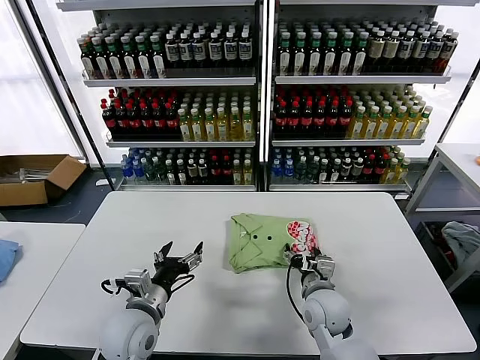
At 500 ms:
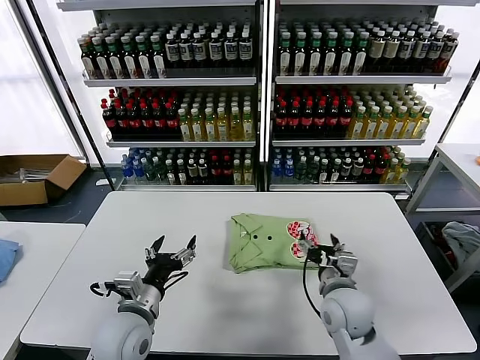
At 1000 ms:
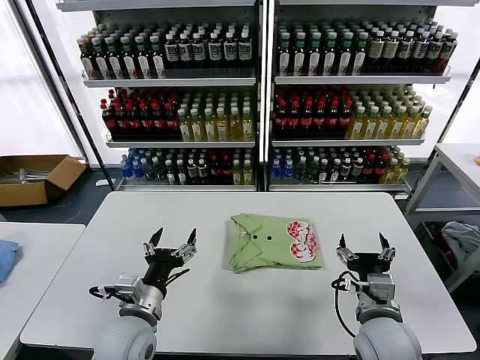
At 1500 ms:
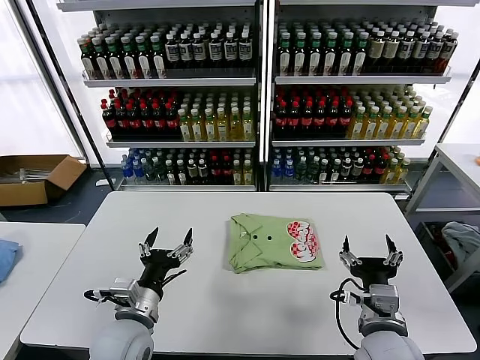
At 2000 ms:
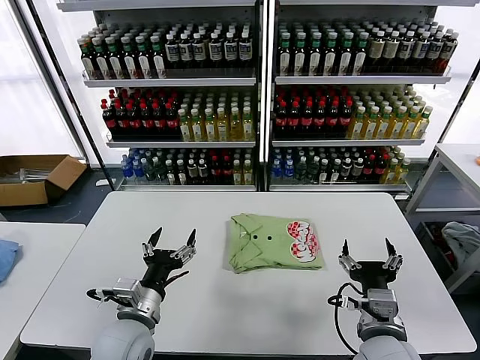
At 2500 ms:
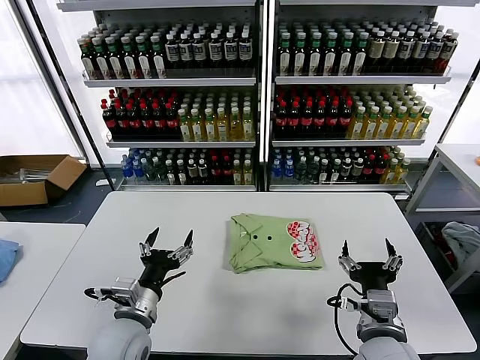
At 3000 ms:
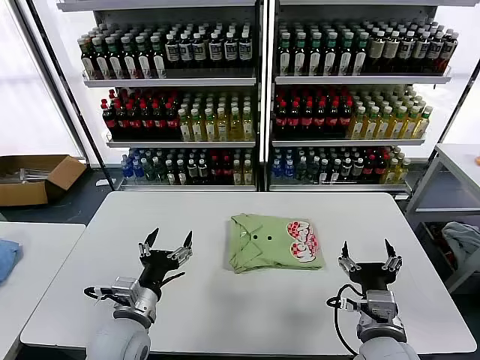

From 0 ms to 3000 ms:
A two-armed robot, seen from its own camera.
Task of the whole recording: fold and organize the clothes.
From 0 ms to 1500 ms: The right gripper travels backward, upward and to the right by approximately 15 cm.
From 1500 ms to 3000 ms: Both grippers stay put.
